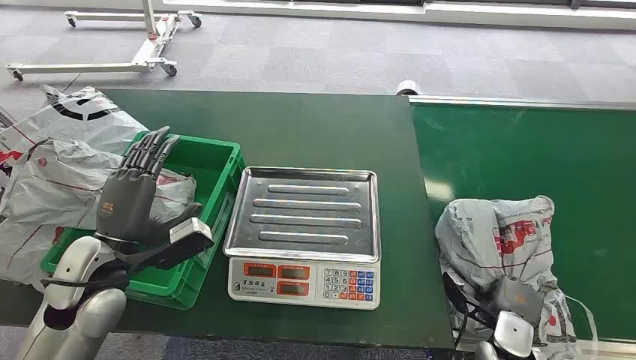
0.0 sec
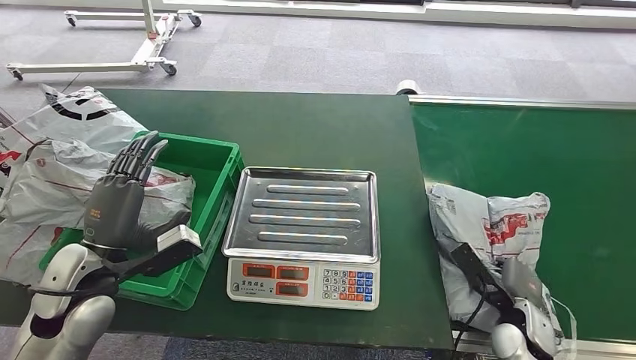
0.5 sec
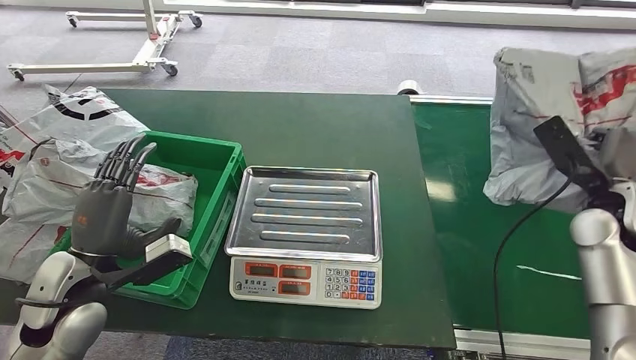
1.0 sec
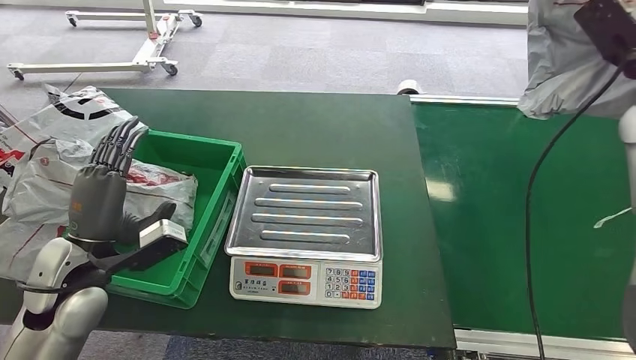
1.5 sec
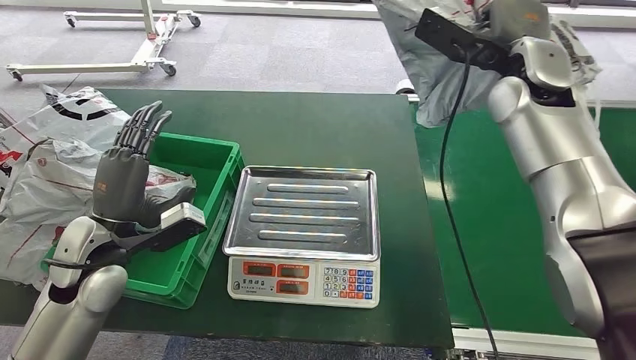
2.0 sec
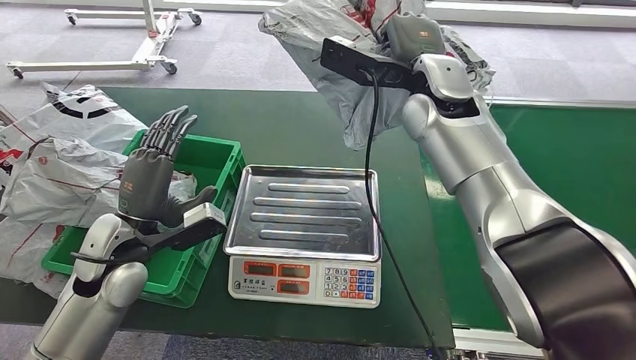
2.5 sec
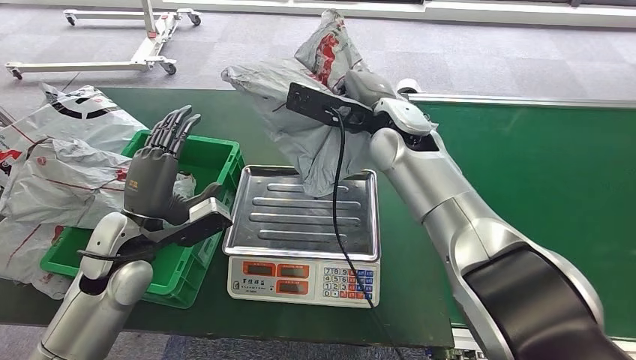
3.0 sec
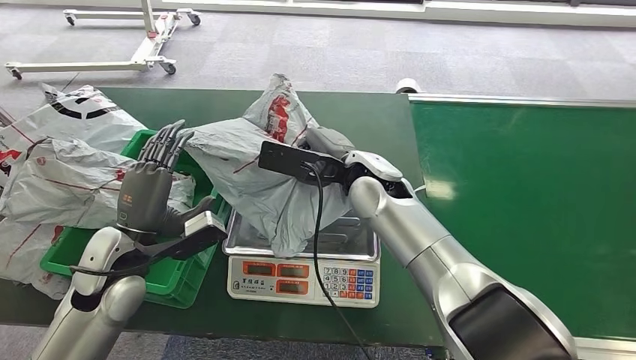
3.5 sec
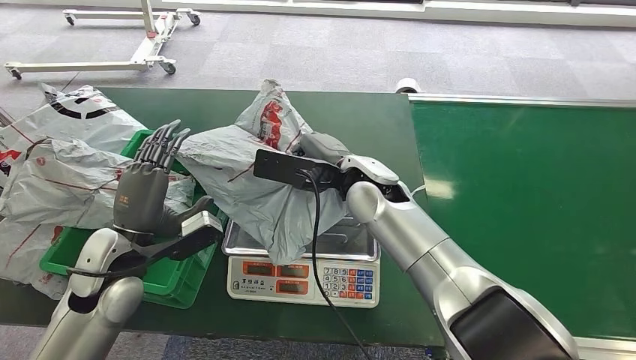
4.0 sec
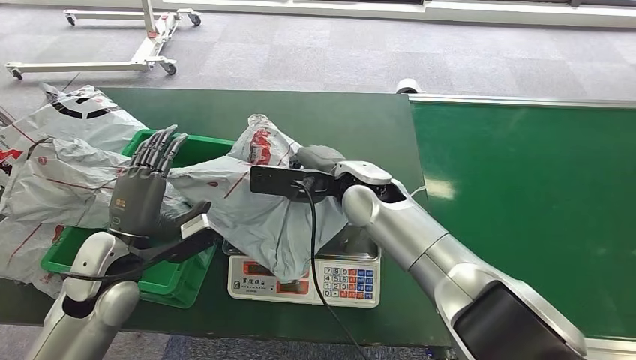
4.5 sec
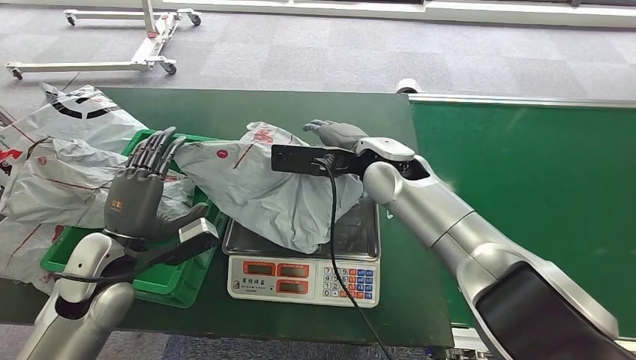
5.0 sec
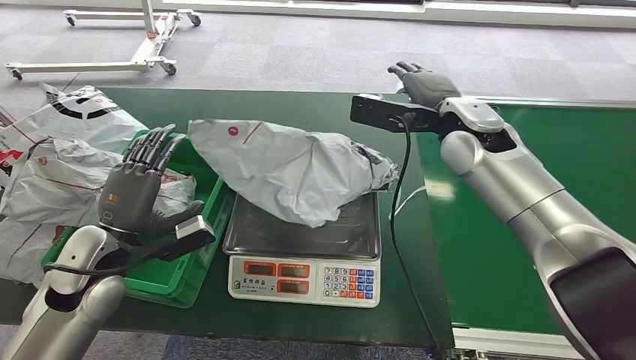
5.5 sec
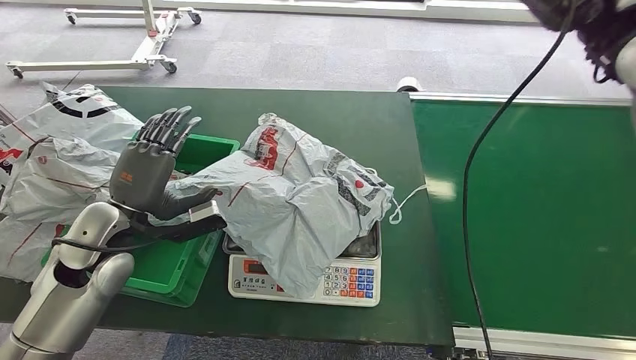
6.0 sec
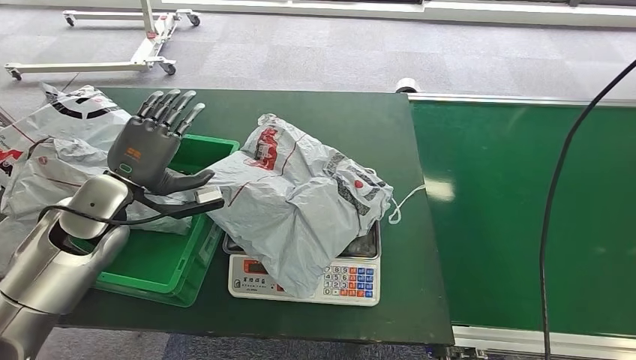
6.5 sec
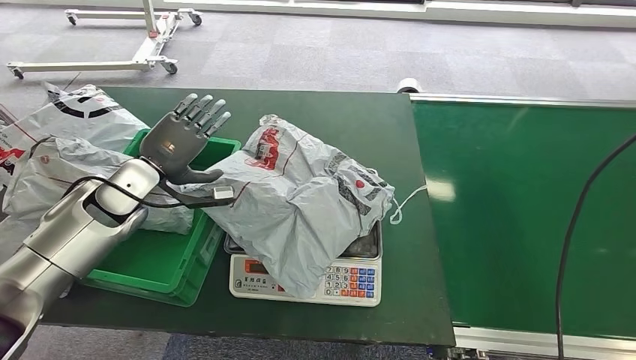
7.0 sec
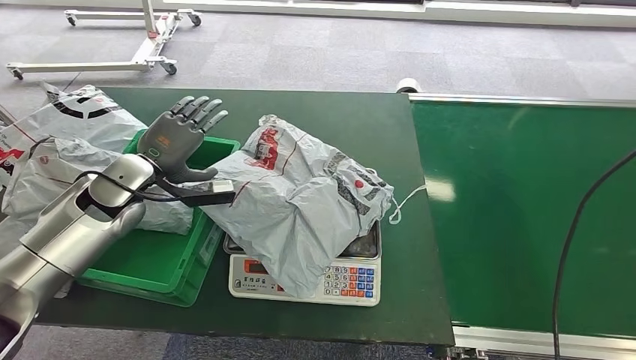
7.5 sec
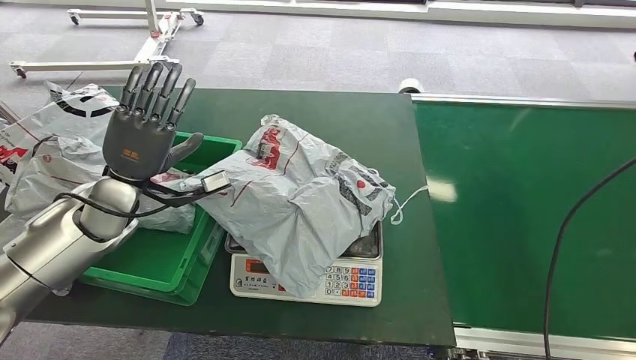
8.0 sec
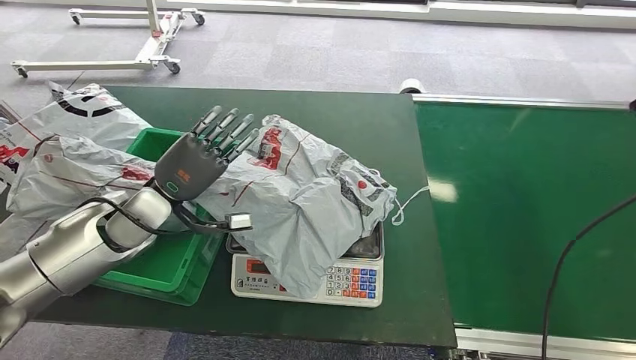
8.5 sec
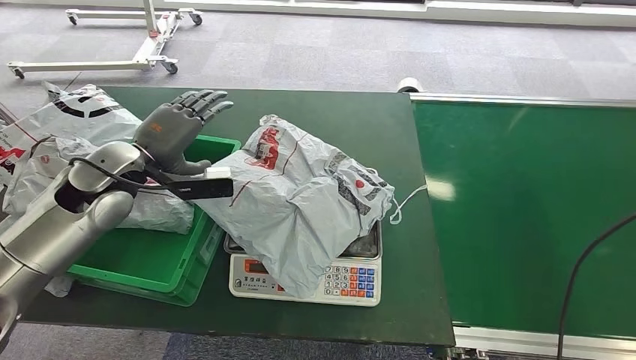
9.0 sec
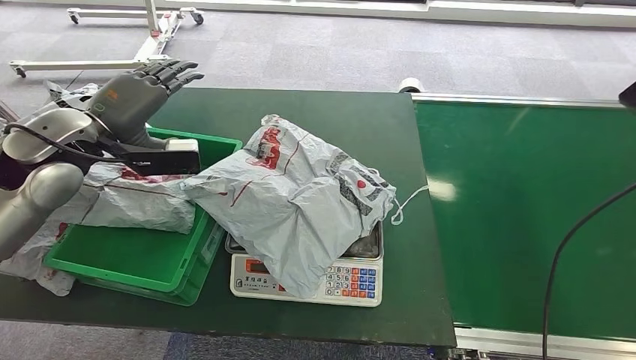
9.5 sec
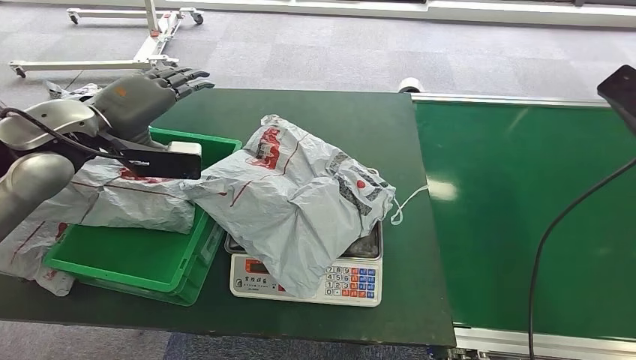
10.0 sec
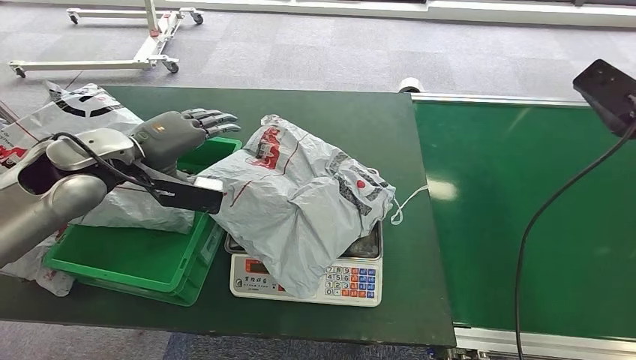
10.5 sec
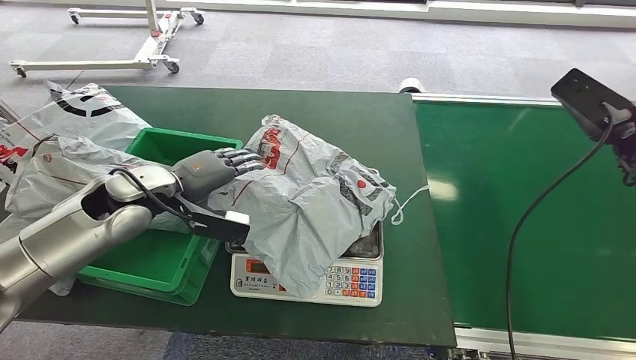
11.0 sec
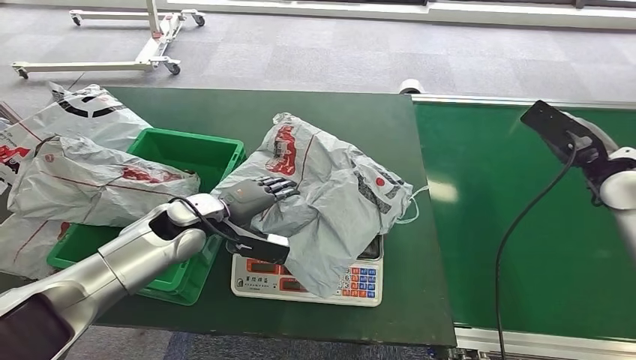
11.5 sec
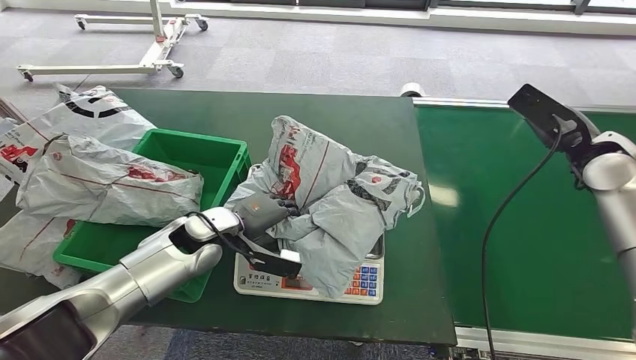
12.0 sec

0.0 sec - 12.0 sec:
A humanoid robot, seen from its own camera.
Task of the whole recording: Weigh the package on the weighing device and place it in the left basket.
Step, 0.0 sec - 2.0 sec: Pick up the package from the conveyor belt.
Step, 2.5 sec - 6.0 sec: Place the package onto the inbound machine.
8.0 sec - 10.0 sec: The left hand travels upward by approximately 15 cm.

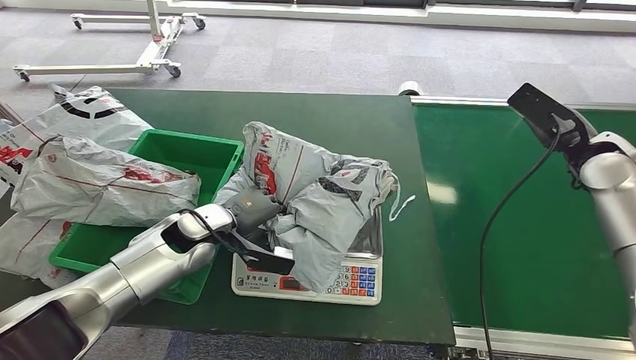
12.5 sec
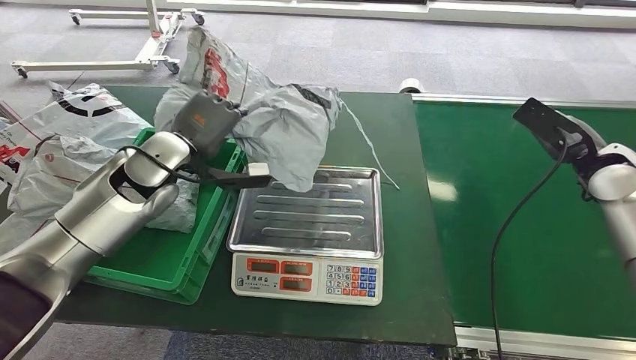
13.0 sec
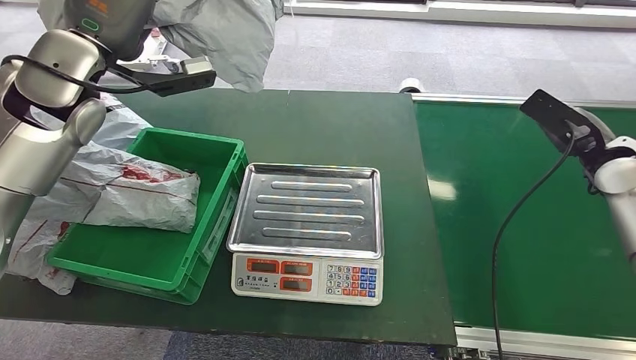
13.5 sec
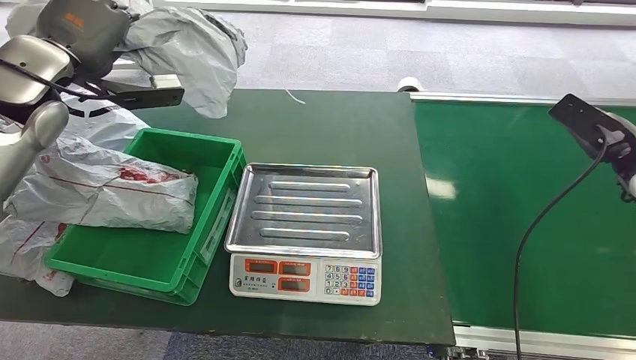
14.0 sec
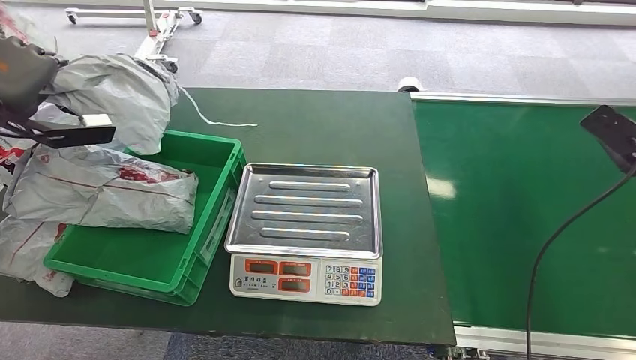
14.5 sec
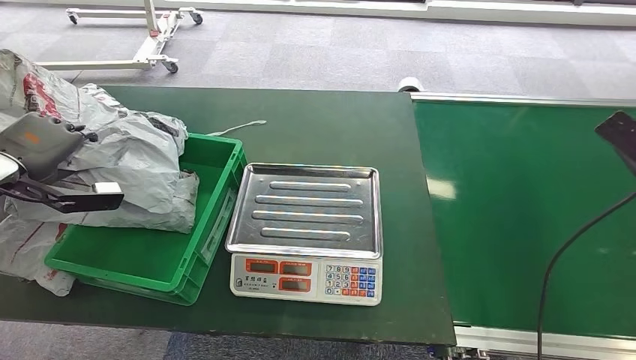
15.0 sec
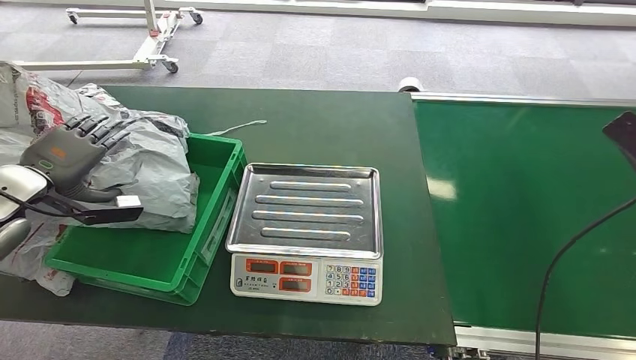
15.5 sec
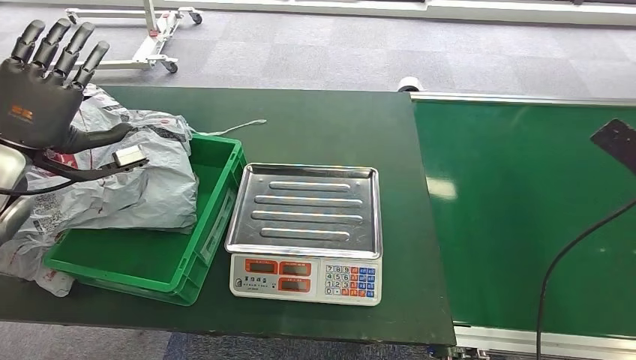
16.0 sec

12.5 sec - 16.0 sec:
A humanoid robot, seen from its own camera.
Task of the whole recording: Weigh the package on the weighing device and place it in the left basket.
Step, 13.5 sec - 16.0 sec: Place the package into the parcel locker.
14.5 sec - 16.0 sec: The left hand shifts roughly 5 cm downward.
